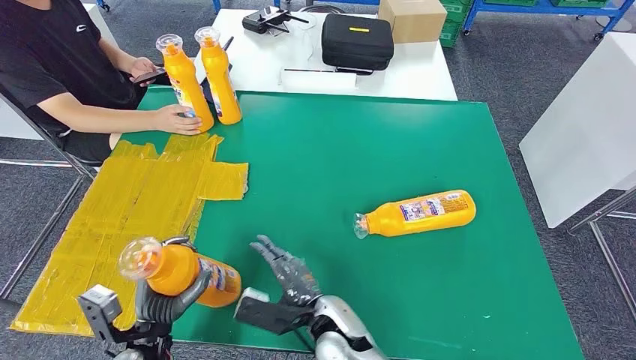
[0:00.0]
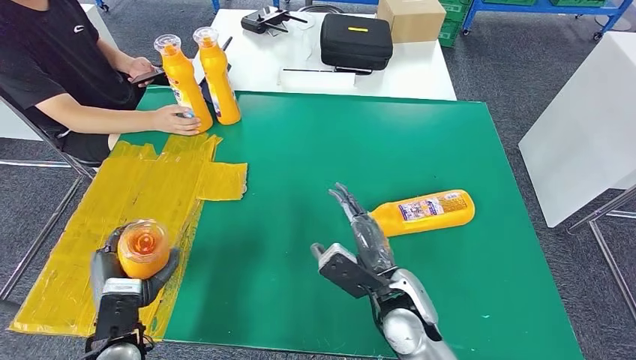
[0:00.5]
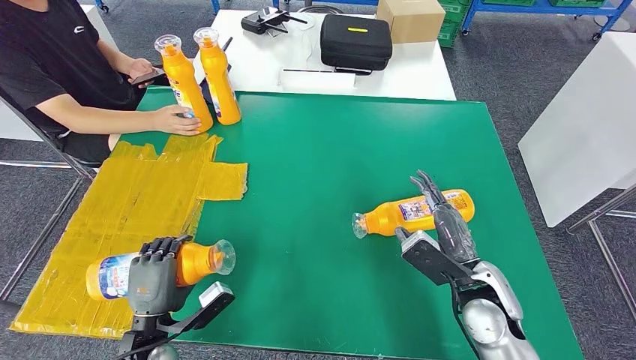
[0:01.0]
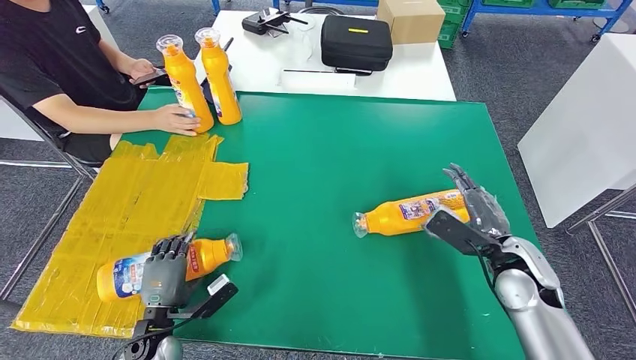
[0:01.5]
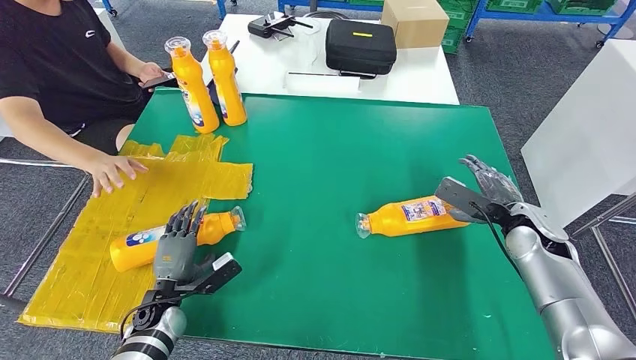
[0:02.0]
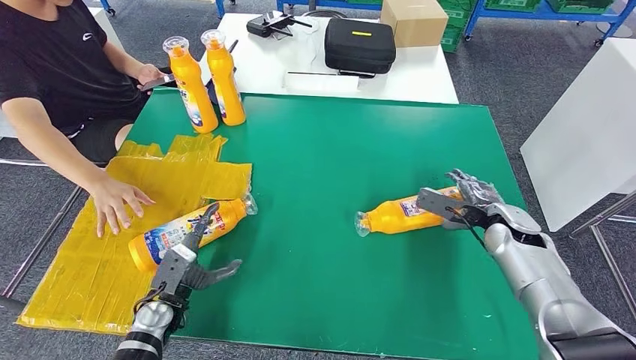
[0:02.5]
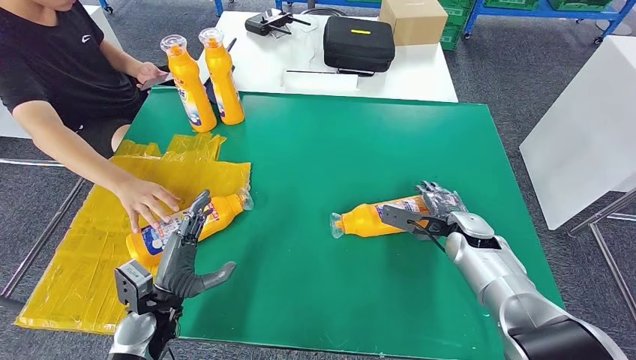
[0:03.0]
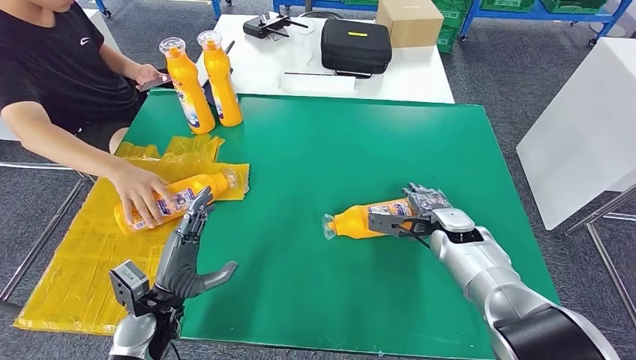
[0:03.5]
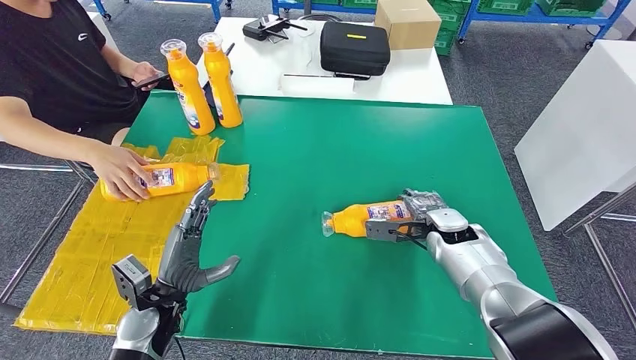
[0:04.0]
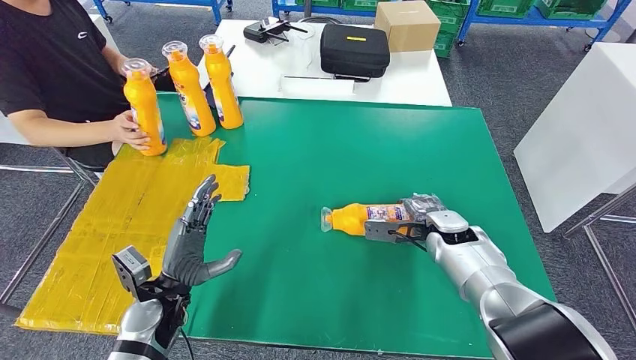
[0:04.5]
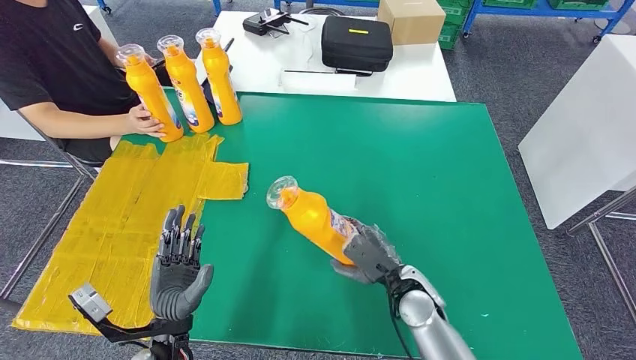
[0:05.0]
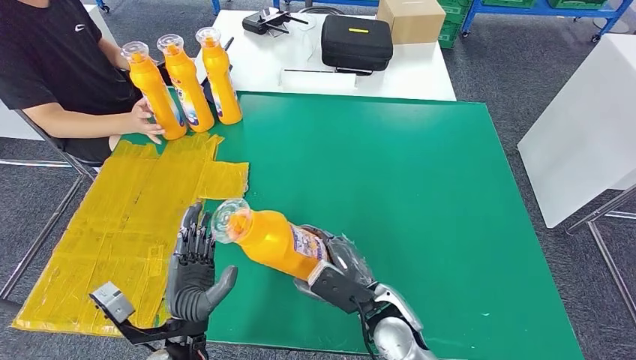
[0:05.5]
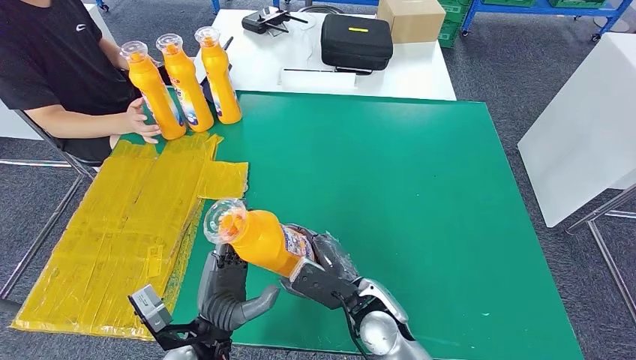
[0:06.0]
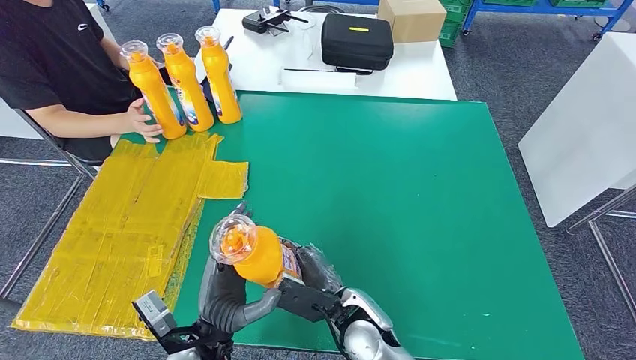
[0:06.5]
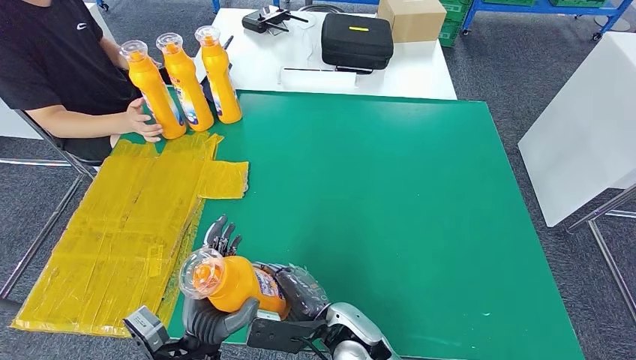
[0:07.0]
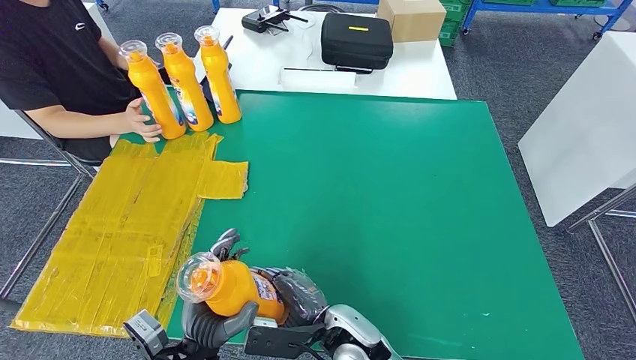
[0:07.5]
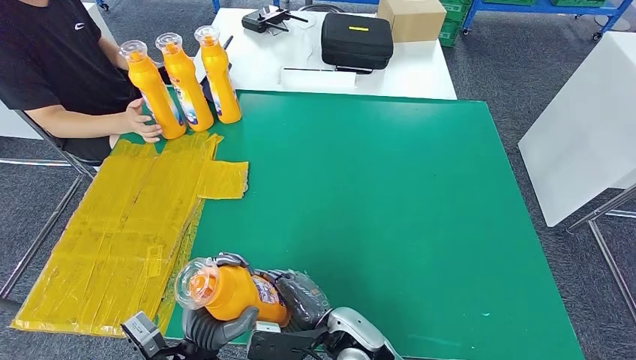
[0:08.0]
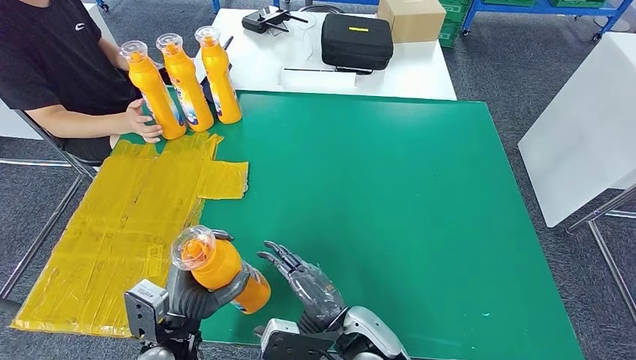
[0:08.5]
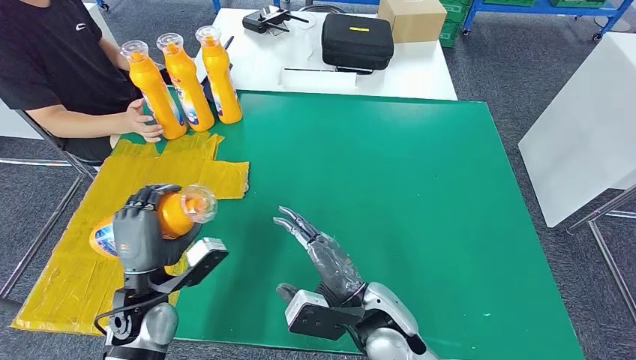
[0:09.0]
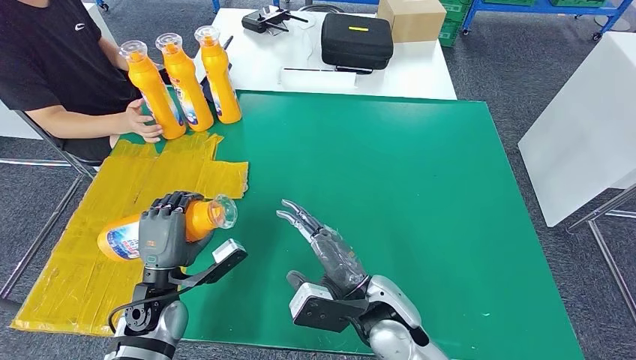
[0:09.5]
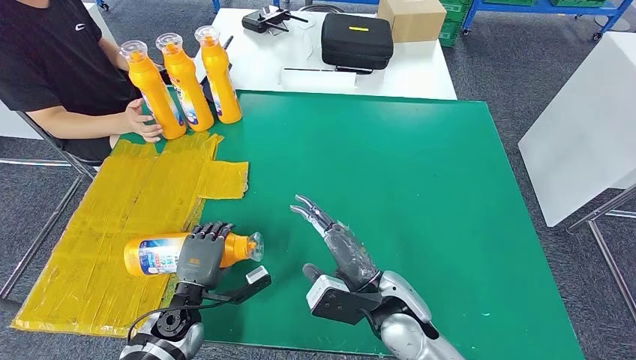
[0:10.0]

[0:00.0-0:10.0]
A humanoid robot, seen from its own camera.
Step, 0:00.0 to 0:02.0: Flip the fast-moving consumer goods bottle to the front side.
Step, 0:02.5 to 0:06.5: Pick up the fast-moving consumer goods bottle from the table.
Step, 0:07.0 to 0:10.0: Flip the fast-moving consumer goods bottle to the front side.
0:06.0 to 0:08.0: The right hand heads backward, covering approximately 5 cm.
0:08.0 to 0:10.0: The left hand shifts roughly 15 cm forward, to the left and downward; the right hand moves to the right and upward, about 10 cm.

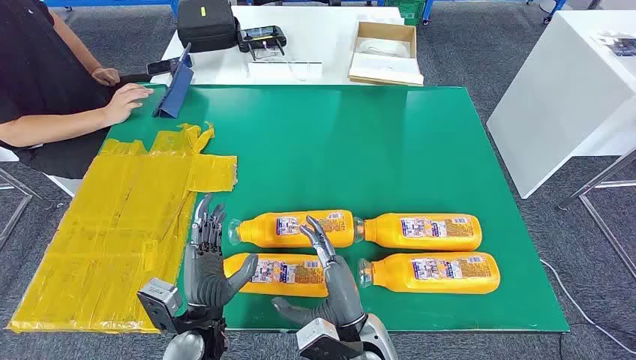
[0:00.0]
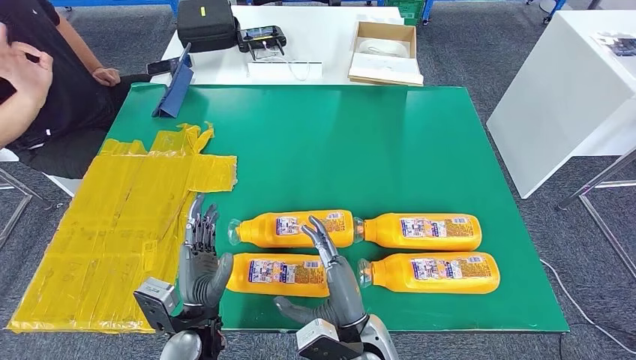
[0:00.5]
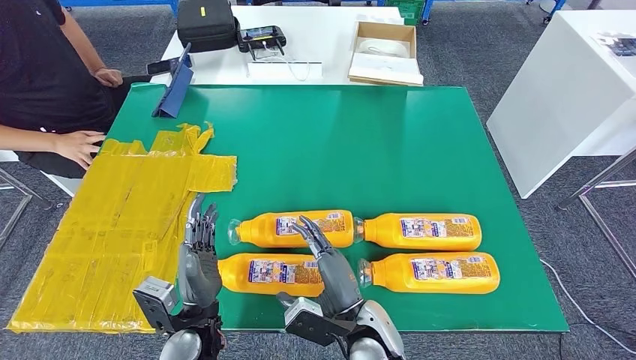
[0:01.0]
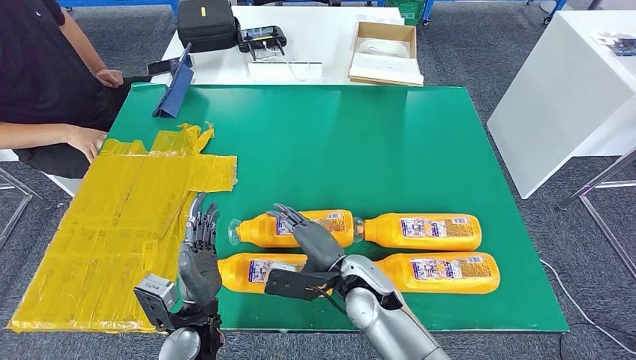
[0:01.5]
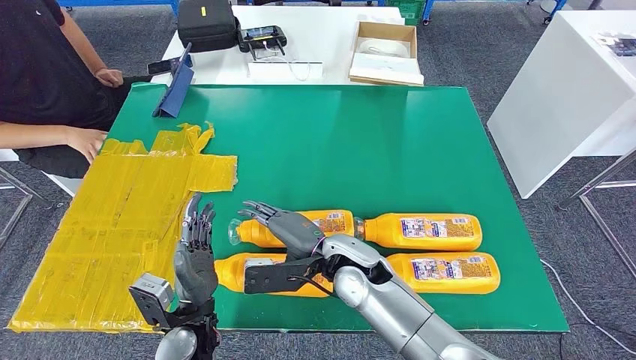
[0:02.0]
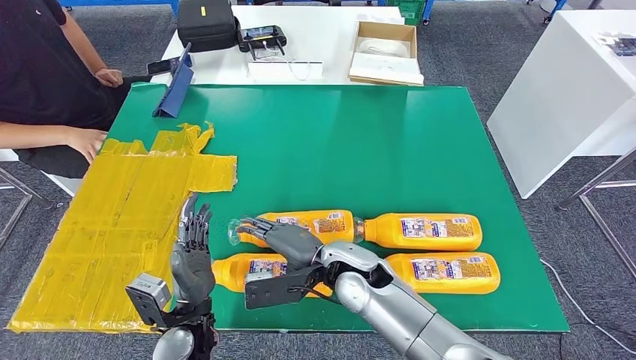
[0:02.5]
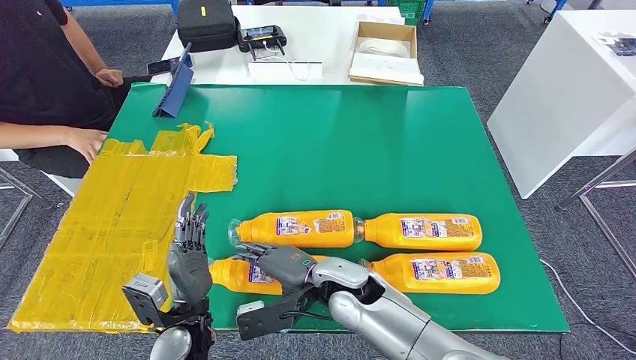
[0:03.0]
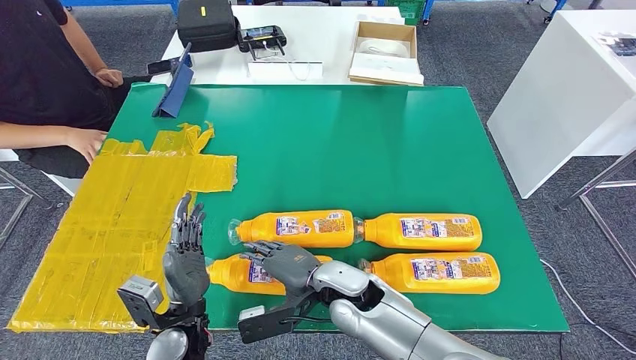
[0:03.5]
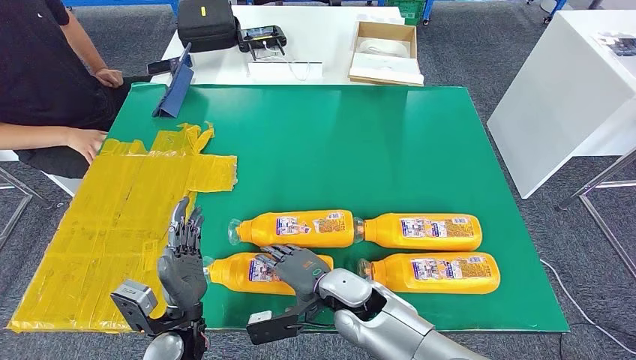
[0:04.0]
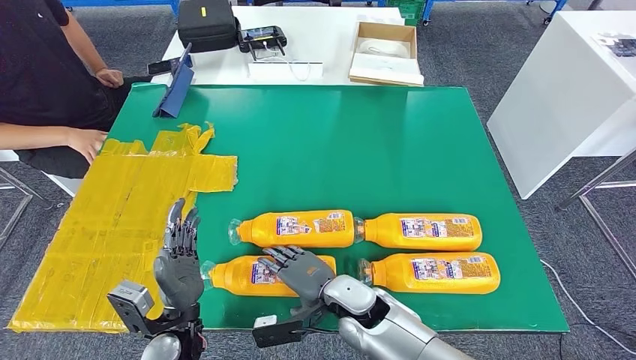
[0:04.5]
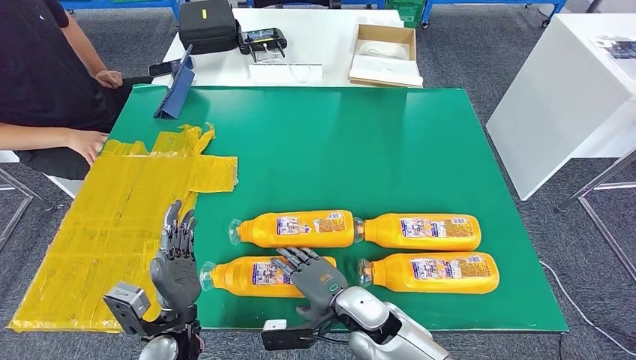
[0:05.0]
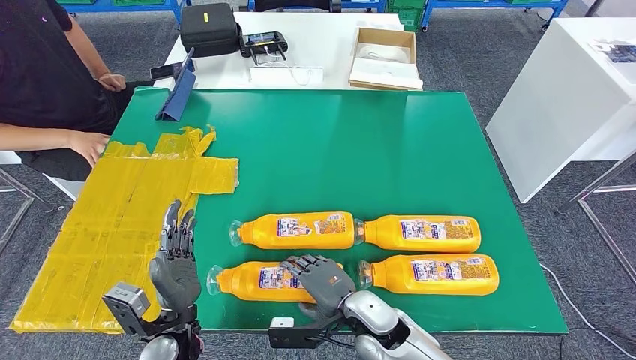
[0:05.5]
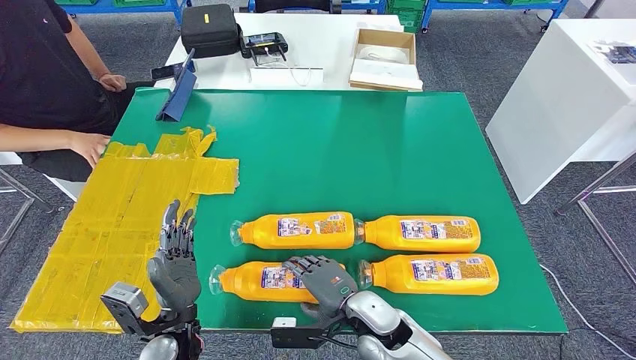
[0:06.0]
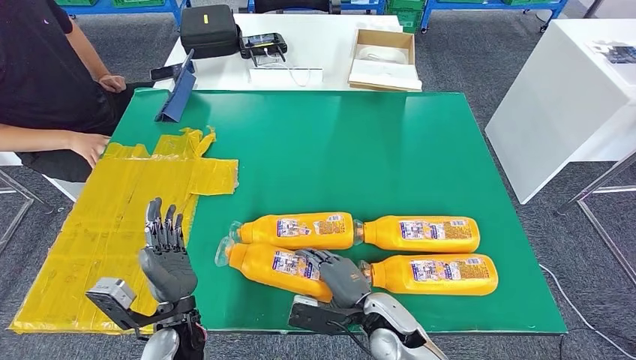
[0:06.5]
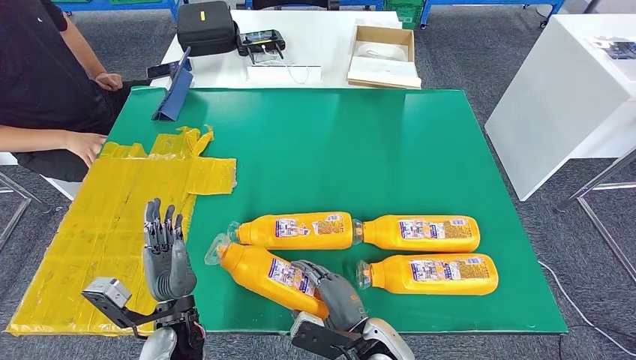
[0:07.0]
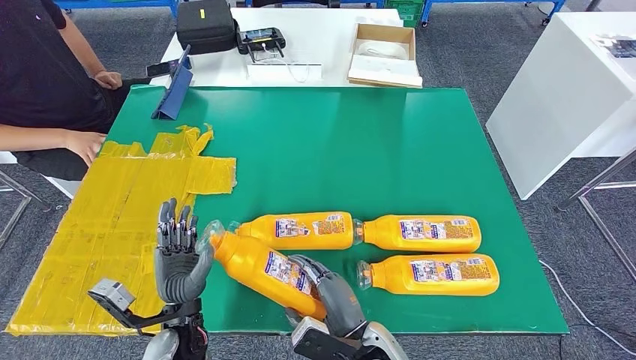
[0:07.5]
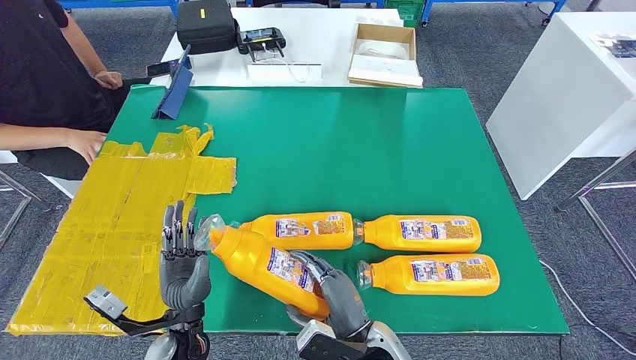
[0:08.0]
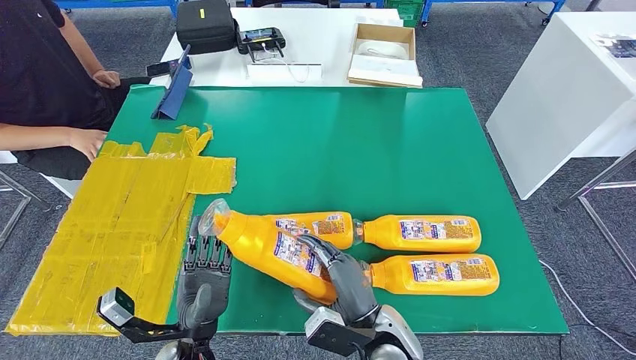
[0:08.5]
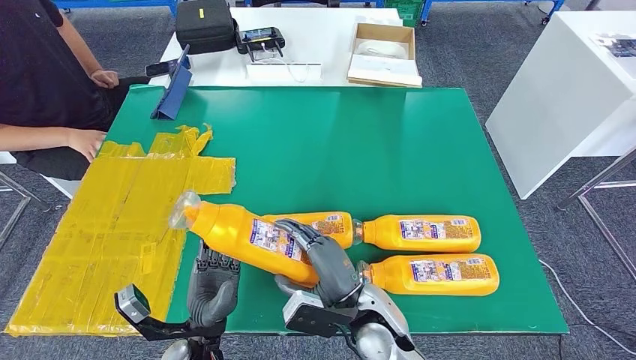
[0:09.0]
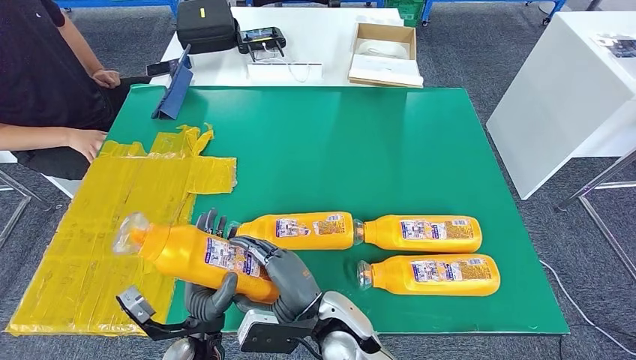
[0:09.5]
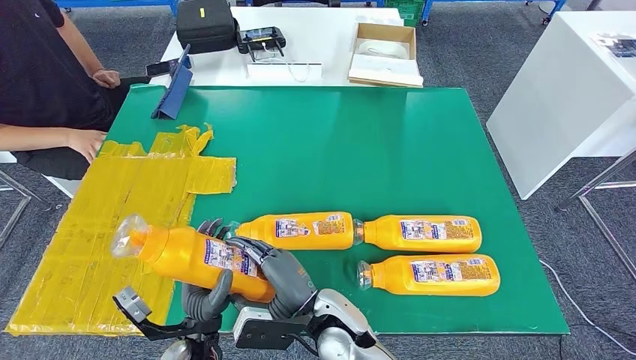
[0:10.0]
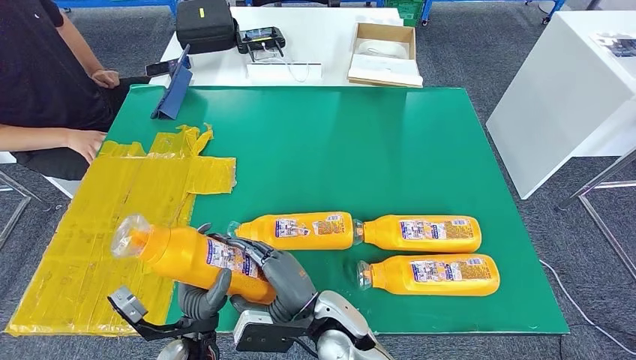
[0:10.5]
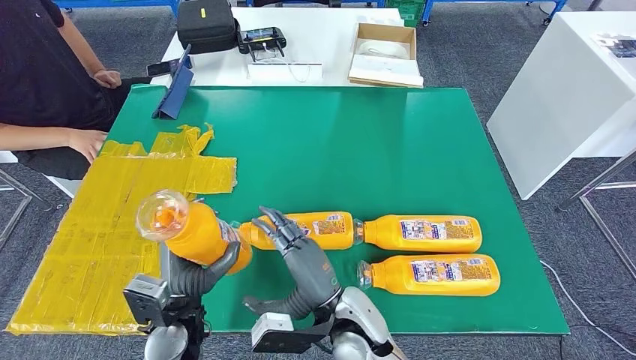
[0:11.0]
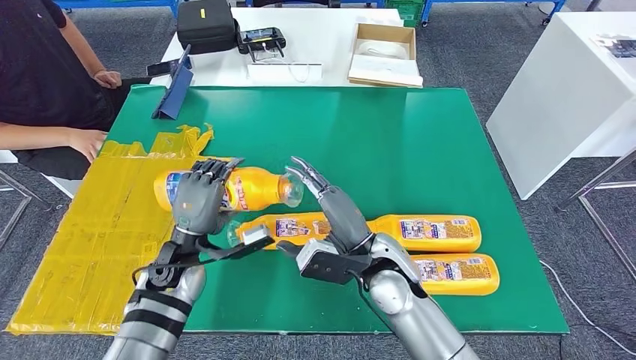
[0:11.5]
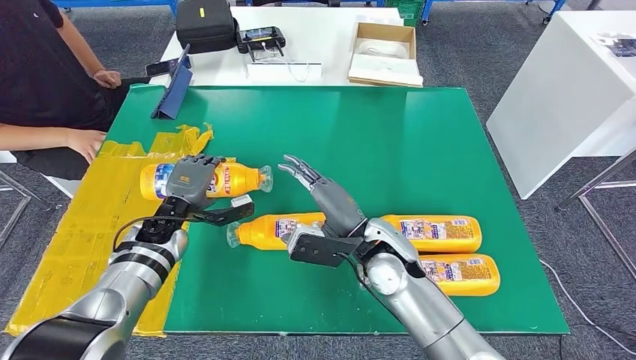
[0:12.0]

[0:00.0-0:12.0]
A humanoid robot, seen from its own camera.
Step, 0:00.0 to 0:07.5: Take the fast-moving consumer goods bottle from the table.
0:02.0 to 0:04.0: The right hand travels downward by about 5 cm.
0:08.0 to 0:10.0: The right hand shifts about 10 cm to the left.
0:10.0 to 0:12.0: The right hand shifts about 15 cm forward, to the right and upward. The left hand moves forward and to the left, some 25 cm.
